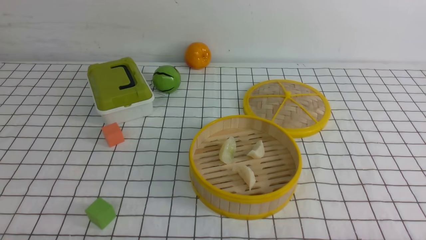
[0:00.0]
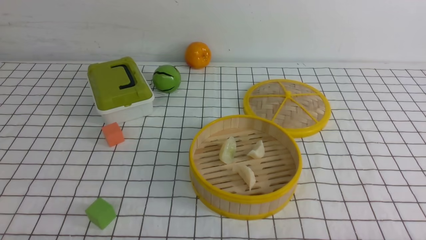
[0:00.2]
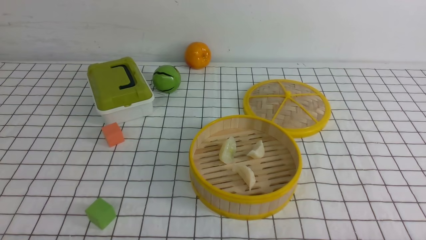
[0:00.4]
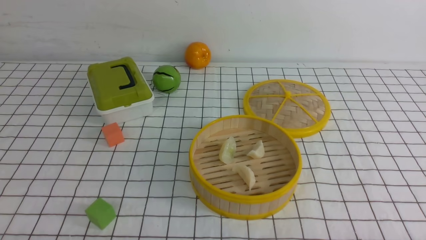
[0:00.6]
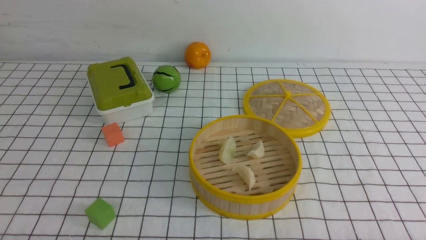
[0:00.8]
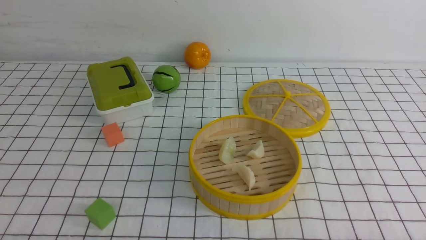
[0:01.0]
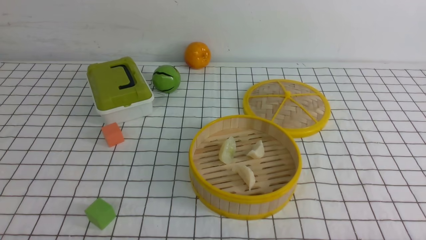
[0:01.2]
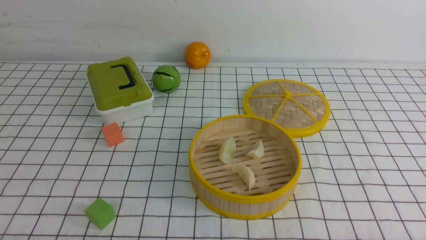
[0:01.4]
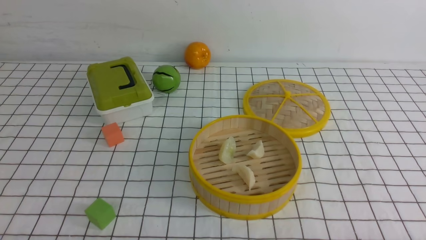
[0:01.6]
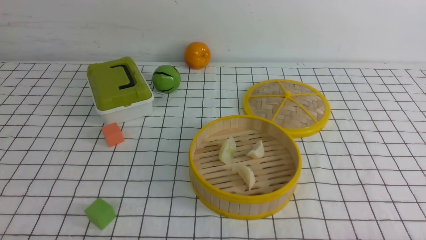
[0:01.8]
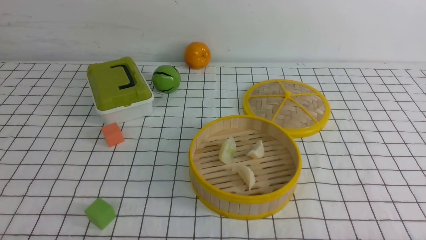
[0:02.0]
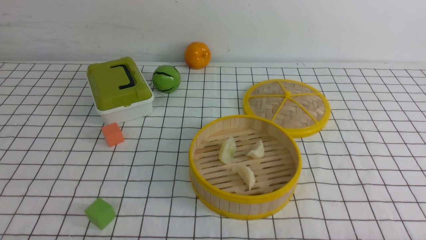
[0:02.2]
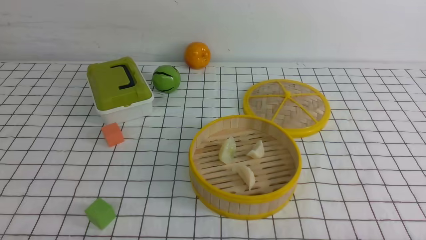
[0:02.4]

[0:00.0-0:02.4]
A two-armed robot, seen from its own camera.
Task of the whole recording: put the dumplings into the steamer on the table with the white tablecloth.
0:01.2 to 0:02.4: Neither gripper changes place.
